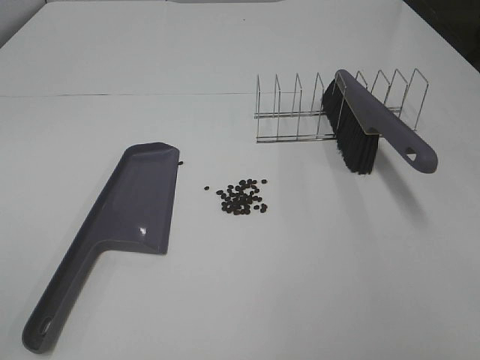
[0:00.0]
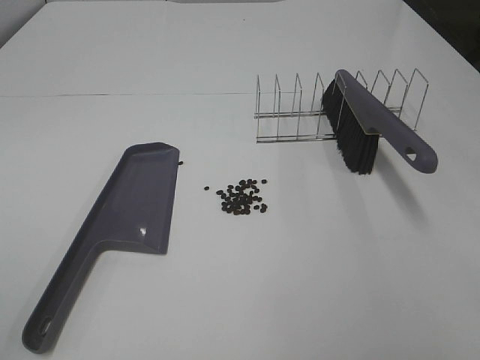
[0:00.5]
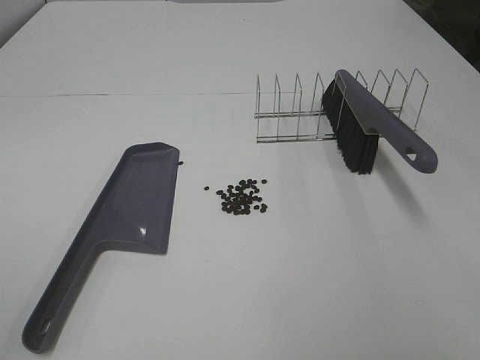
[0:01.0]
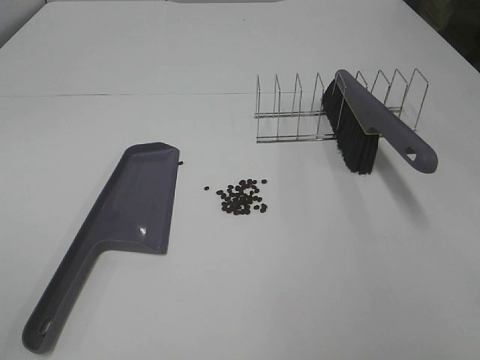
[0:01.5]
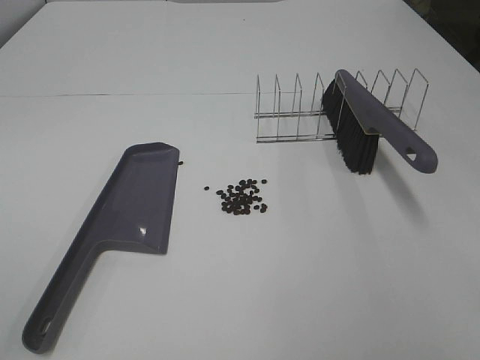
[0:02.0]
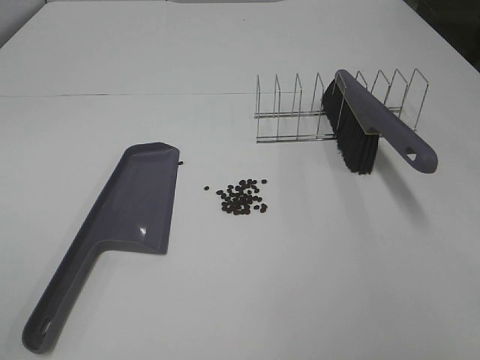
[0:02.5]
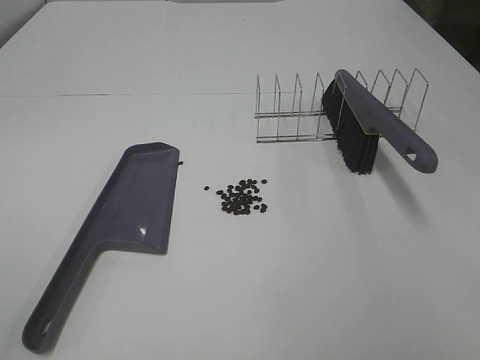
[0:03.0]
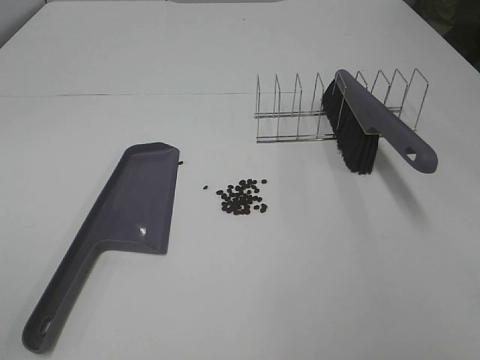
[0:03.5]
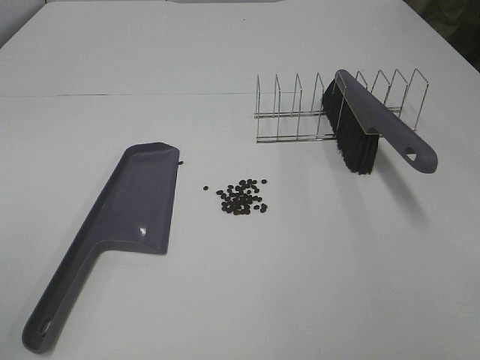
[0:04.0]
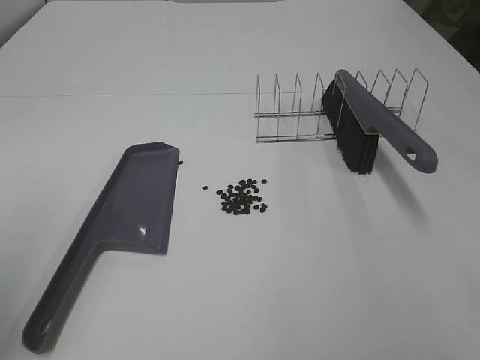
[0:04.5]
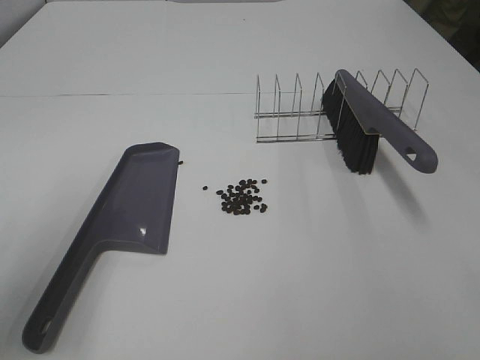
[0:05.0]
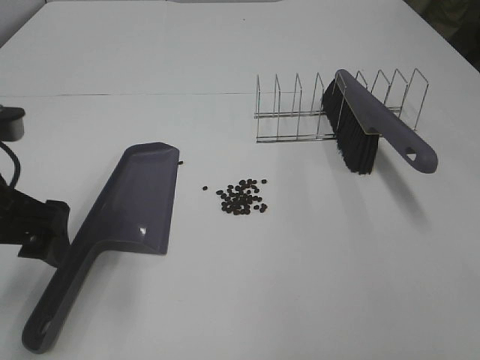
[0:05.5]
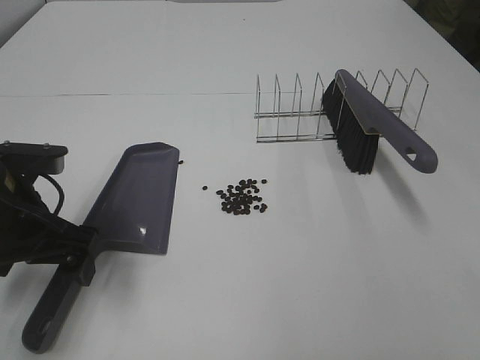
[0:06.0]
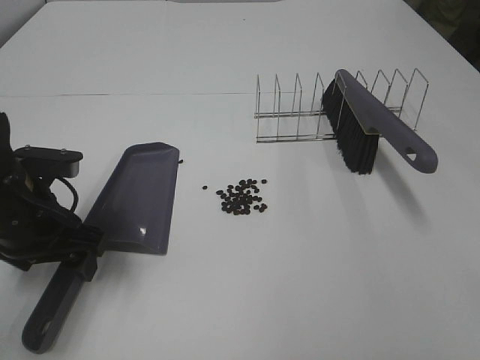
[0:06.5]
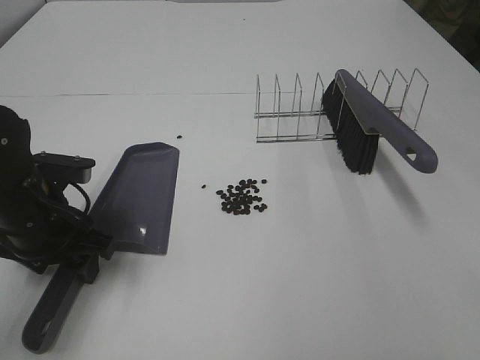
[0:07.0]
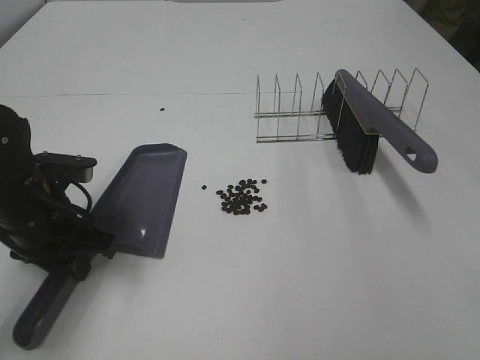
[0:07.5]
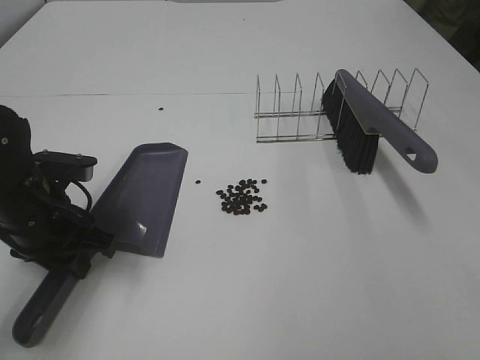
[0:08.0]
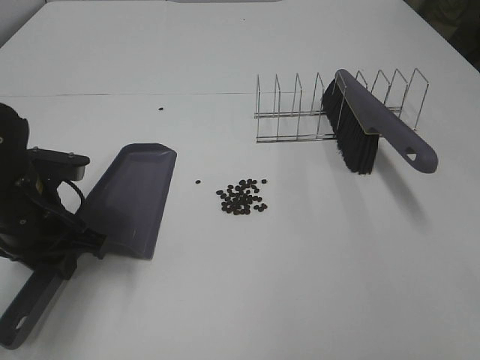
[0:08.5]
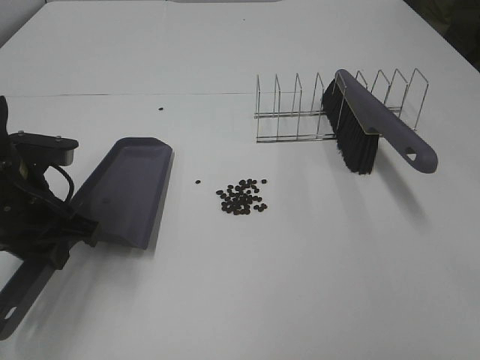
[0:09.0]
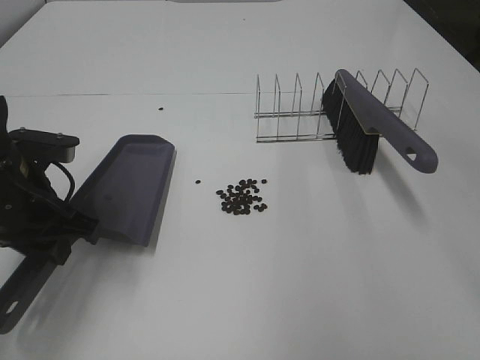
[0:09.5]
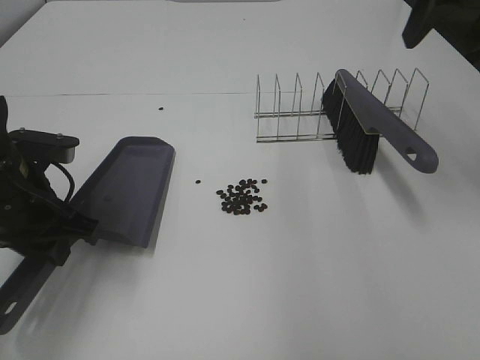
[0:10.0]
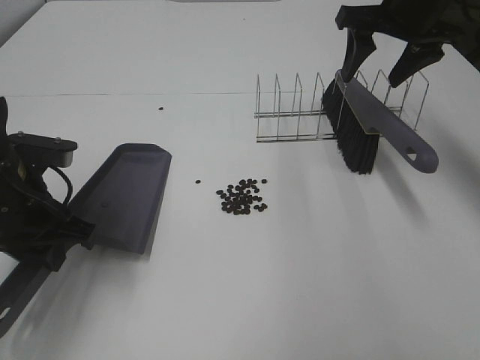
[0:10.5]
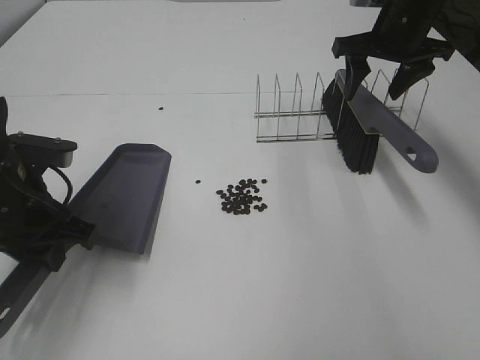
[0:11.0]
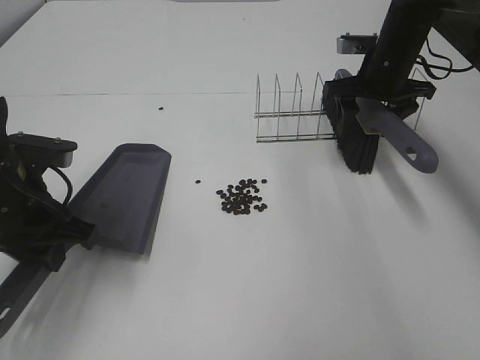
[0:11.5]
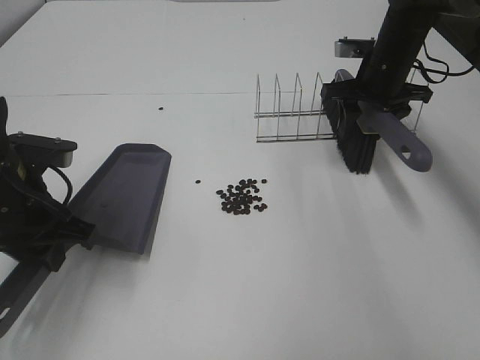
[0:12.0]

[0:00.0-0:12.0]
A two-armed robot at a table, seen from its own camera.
Task of the whole recording: Sweep Coffee Bean.
Step, 0:00.0 to 0:07.0: Left hand: grab the dustpan.
0:04.0 to 0:06.0: The left gripper is displaced forward, downward and to the right by some 30 cm.
0:06.0 to 0:08.0: The left gripper changes place by some 5 cm, and closes its fingers.
0:08.0 to 0:10.0: The right gripper goes roughly 35 cm forward.
0:10.0 to 0:12.0: The right gripper is displaced downward and forward by roughly 20 cm, and closes up.

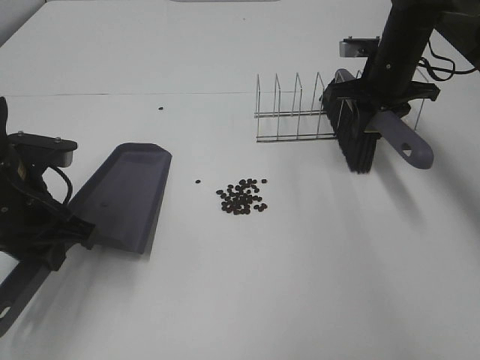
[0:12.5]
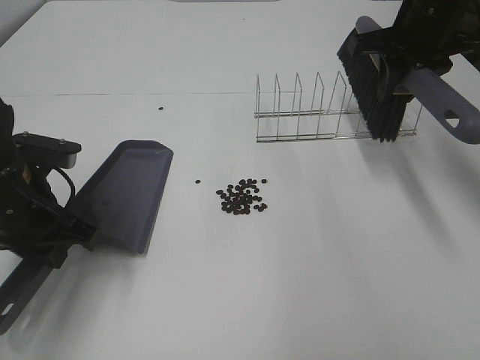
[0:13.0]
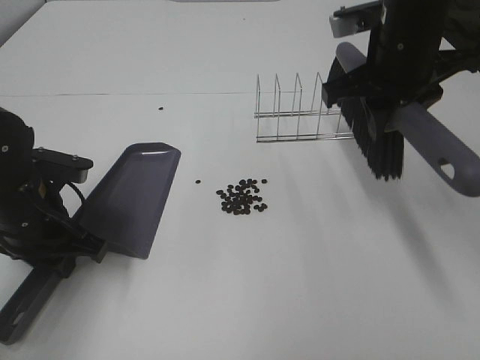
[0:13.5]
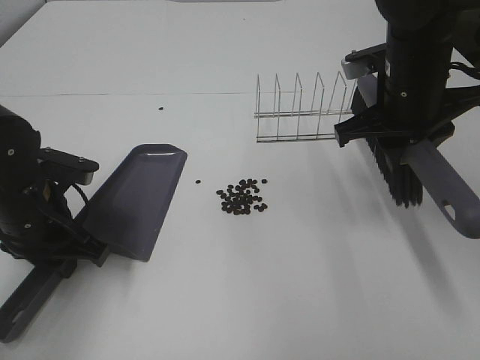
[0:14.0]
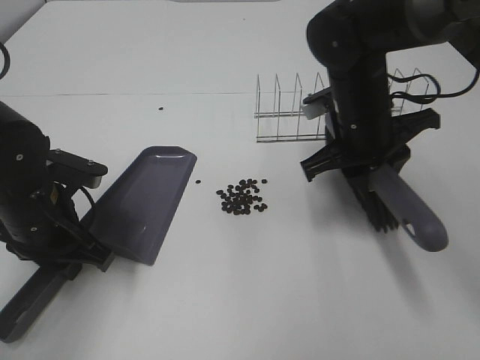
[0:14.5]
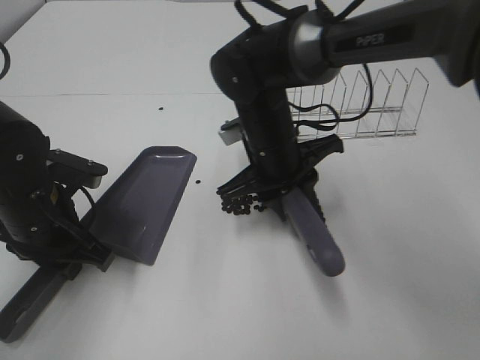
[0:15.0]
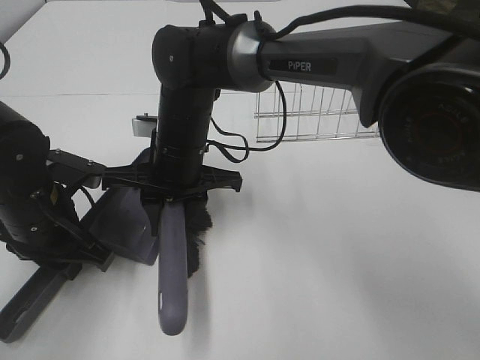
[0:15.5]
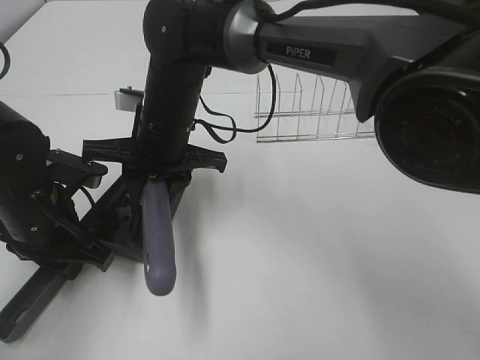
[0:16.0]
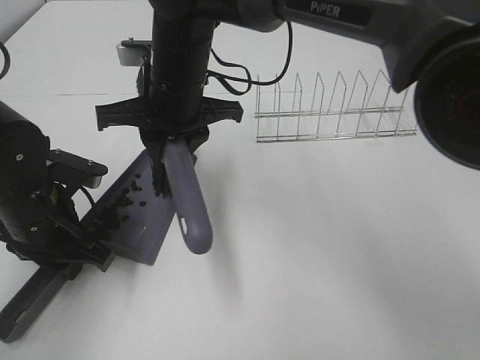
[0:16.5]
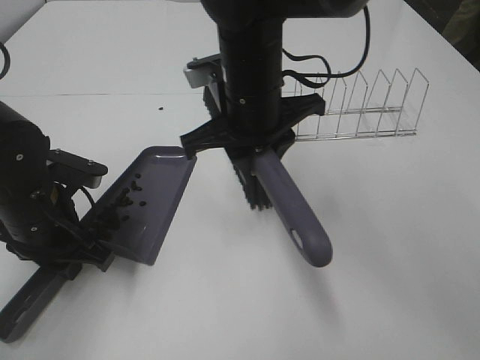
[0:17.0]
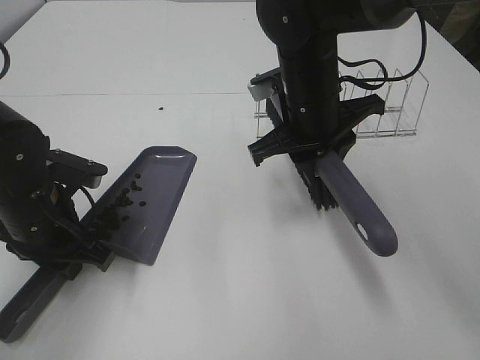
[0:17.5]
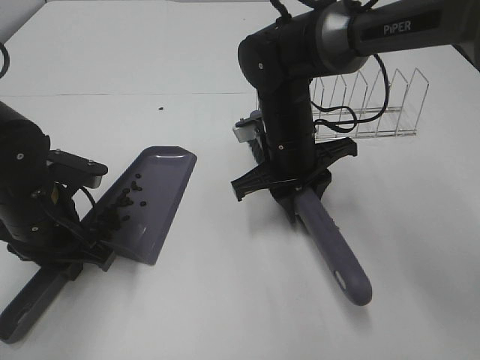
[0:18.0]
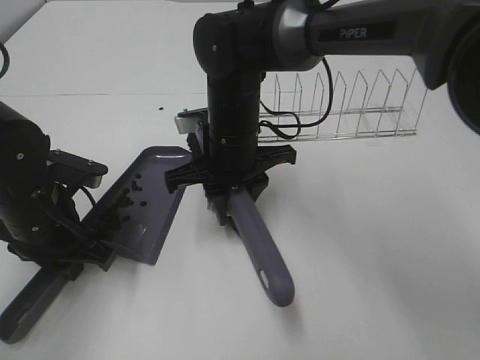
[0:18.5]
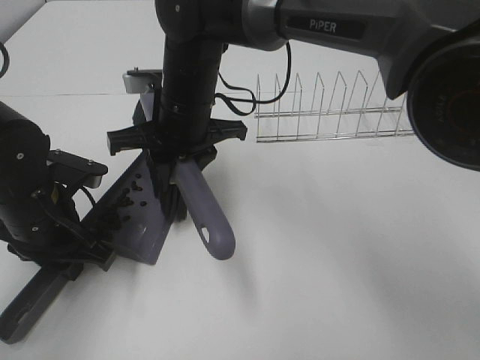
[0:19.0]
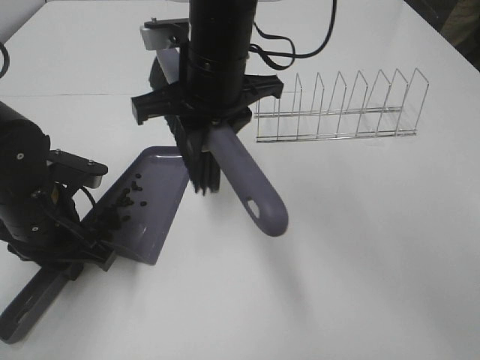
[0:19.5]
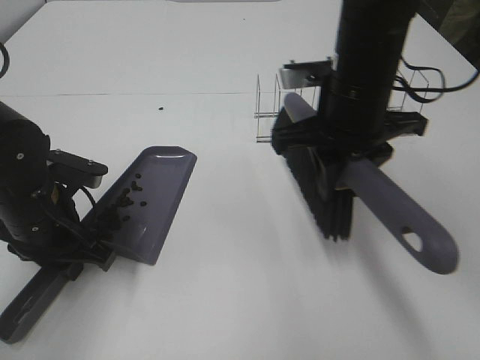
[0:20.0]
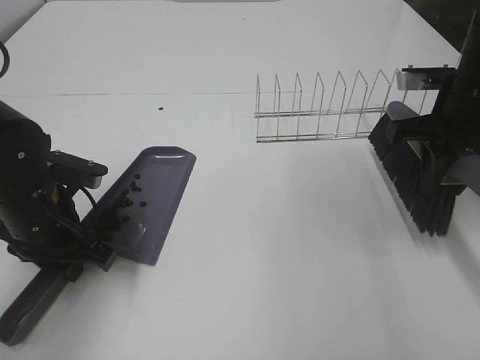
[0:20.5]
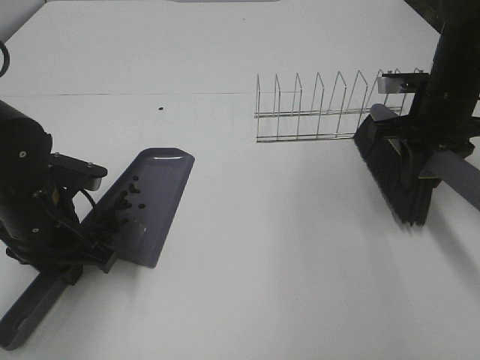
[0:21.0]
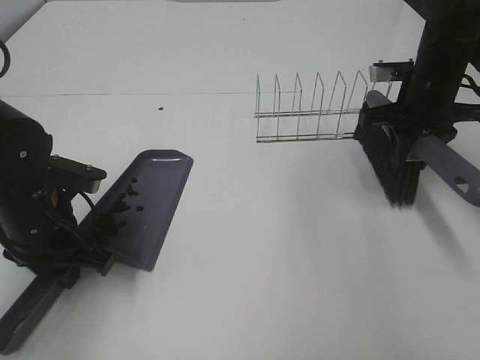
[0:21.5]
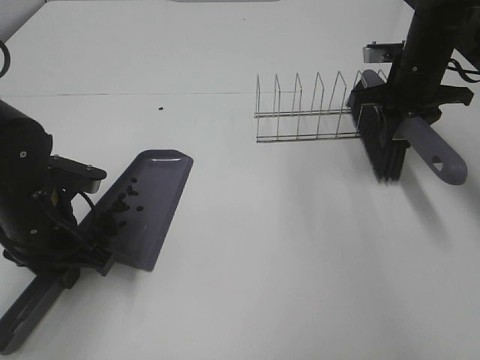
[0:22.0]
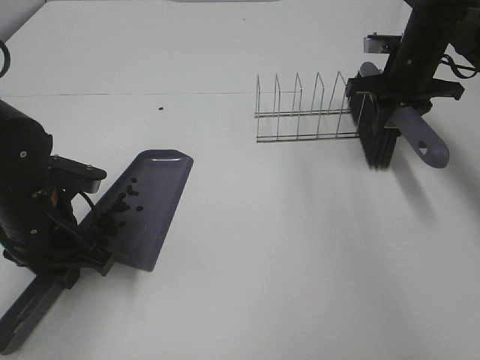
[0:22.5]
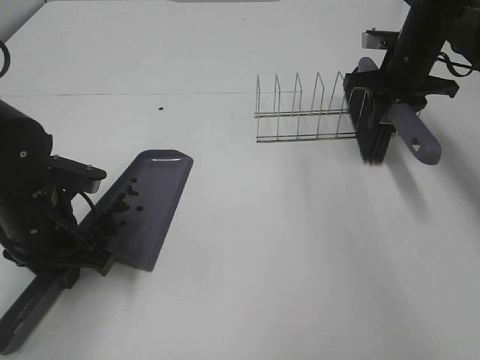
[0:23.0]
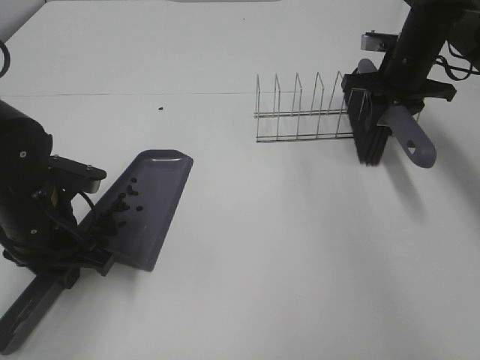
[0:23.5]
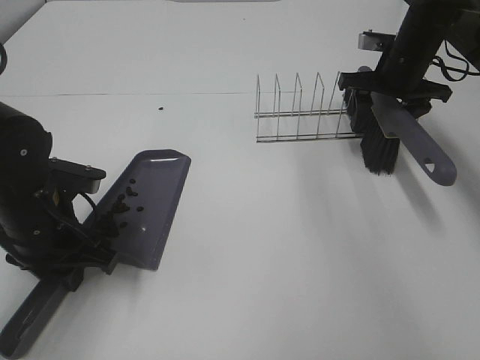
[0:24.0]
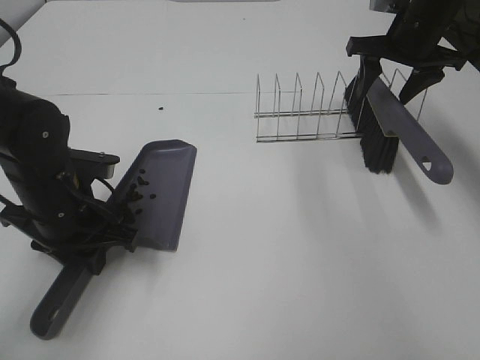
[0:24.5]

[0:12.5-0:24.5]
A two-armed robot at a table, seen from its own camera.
Task of the whole recording: Sweep Coffee Bean.
Step, 0:12.5 to 0:19.0: Right hand:sweep the coffee beans into the dustpan.
Step, 0:19.5 to 0:24.0: Right hand:place the broom on the rack.
0:12.5 to 0:14.5: The right gripper shifts some 15 cm backward and to the left.
0:14.5 to 0:16.5: The right gripper shifts approximately 20 cm to the left.
0:16.5 to 0:18.5: The right gripper is displaced downward by approximately 5 cm.
0:18.5 to 0:20.5: The right gripper shifts approximately 25 cm to the right.
0:20.5 to 0:22.5: The right gripper moves forward, about 15 cm.
0:22.5 to 0:24.5: The right gripper opens.

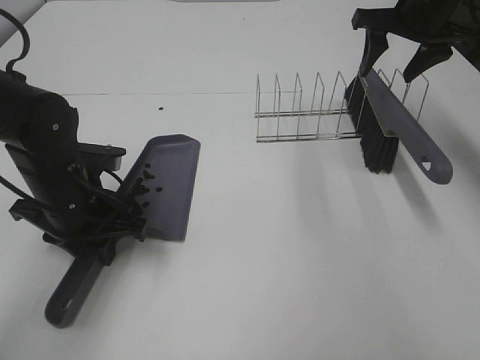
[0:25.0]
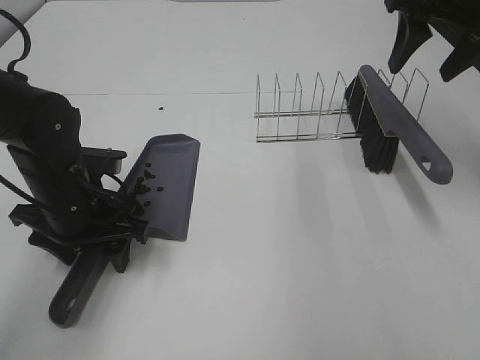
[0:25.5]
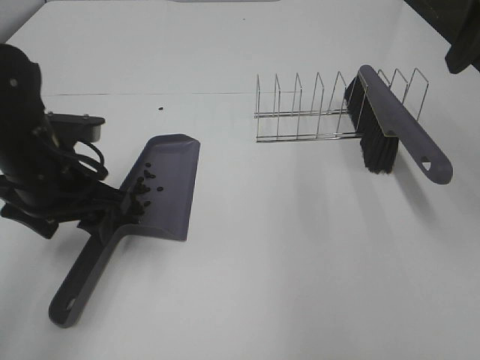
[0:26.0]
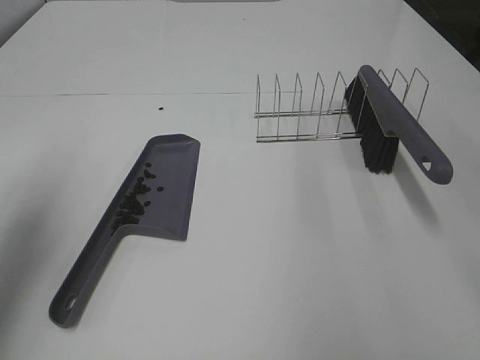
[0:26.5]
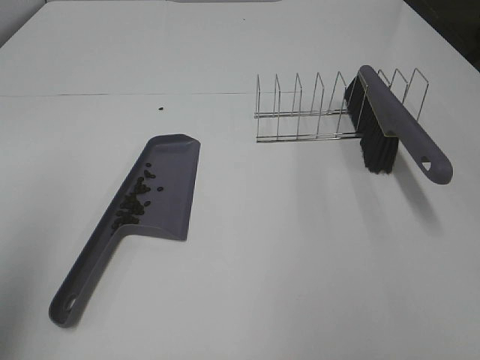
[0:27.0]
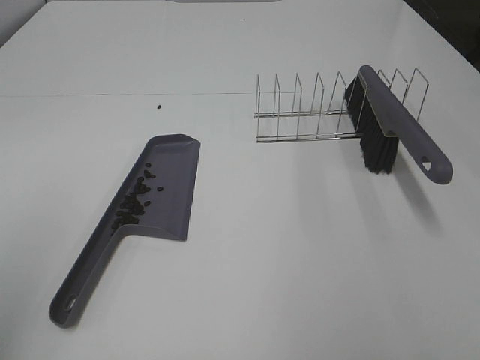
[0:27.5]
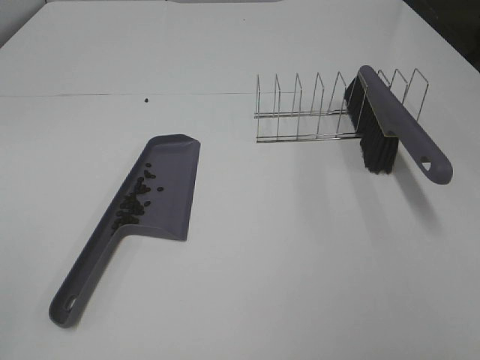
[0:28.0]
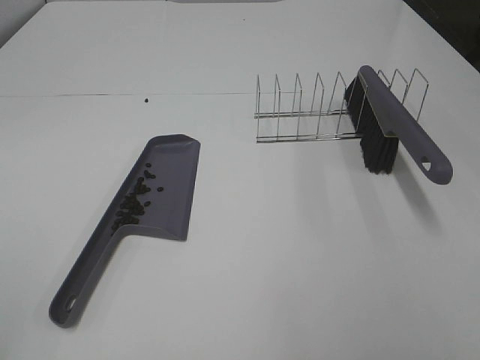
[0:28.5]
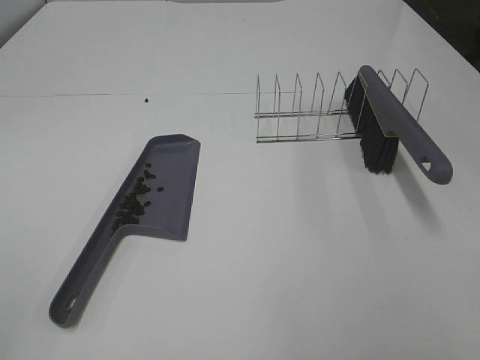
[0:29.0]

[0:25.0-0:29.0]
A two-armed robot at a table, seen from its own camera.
Task of the whole recording: Sweep Coffee Bean.
0:25.0 to 0:27.0: The right gripper goes some 40 cm backward; the left gripper heads upward, backward and to the left, covering roughly 35 cm, and opens up.
0:27.0 to 0:29.0: The left gripper heads backward and downward, covering approximately 15 cm.
